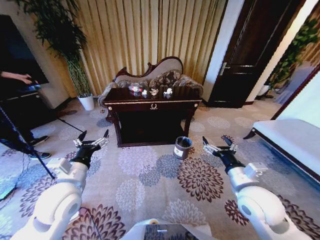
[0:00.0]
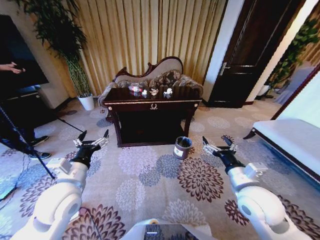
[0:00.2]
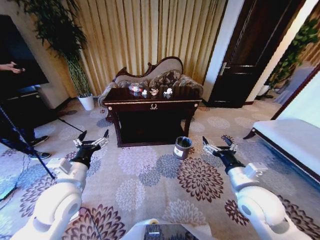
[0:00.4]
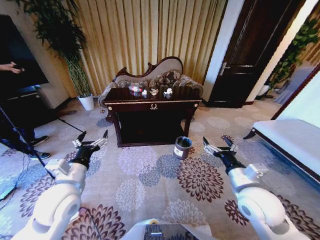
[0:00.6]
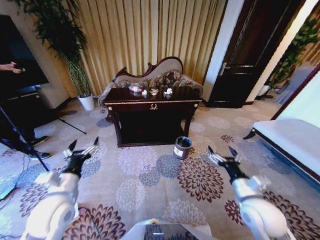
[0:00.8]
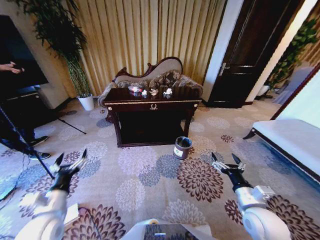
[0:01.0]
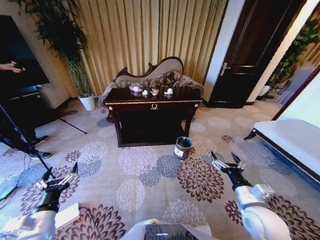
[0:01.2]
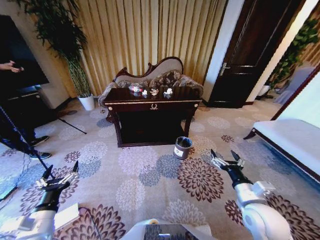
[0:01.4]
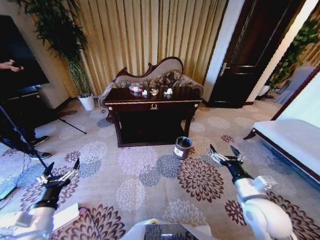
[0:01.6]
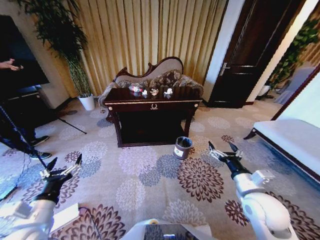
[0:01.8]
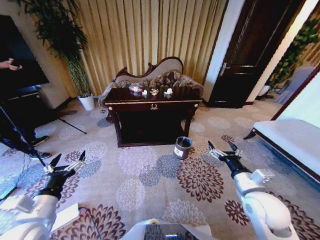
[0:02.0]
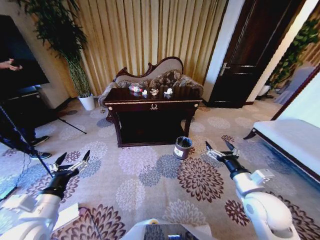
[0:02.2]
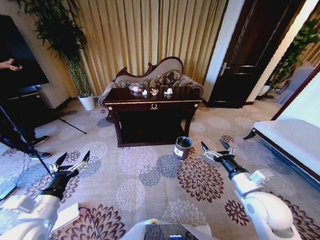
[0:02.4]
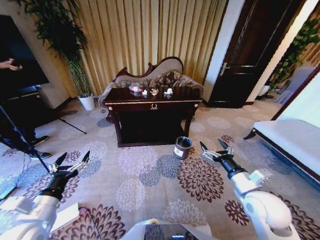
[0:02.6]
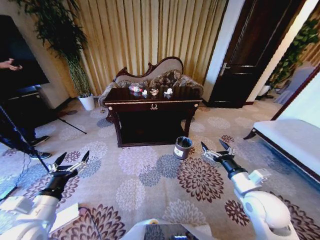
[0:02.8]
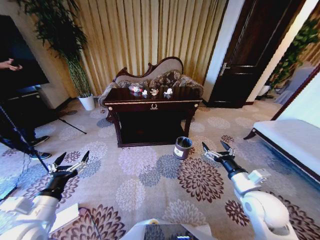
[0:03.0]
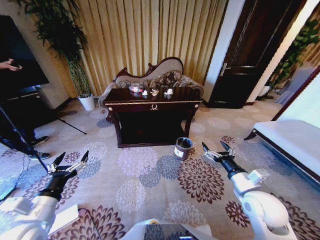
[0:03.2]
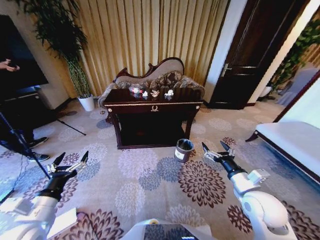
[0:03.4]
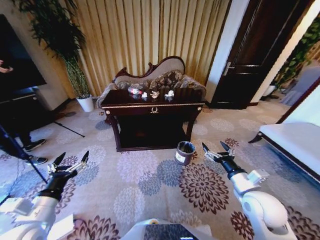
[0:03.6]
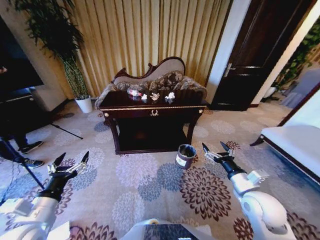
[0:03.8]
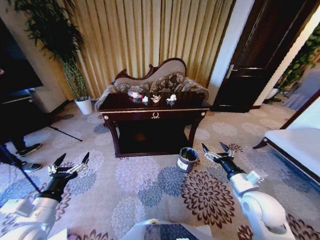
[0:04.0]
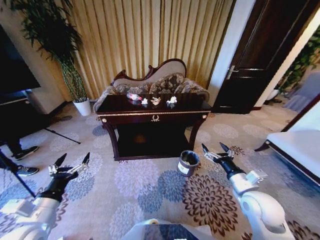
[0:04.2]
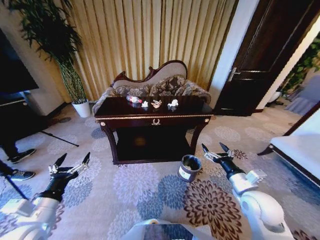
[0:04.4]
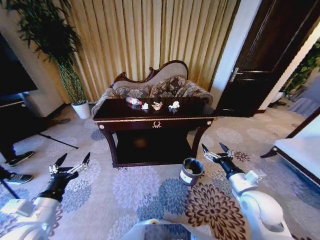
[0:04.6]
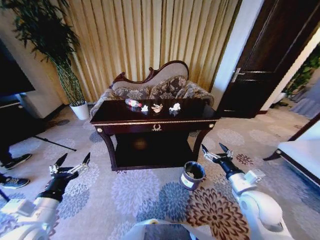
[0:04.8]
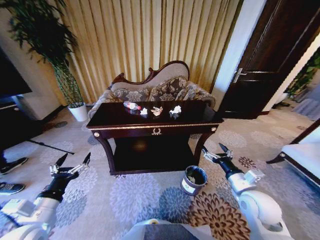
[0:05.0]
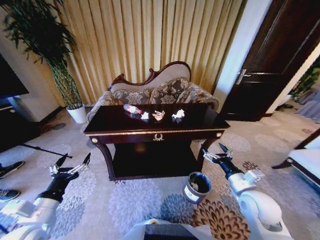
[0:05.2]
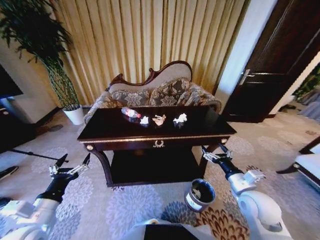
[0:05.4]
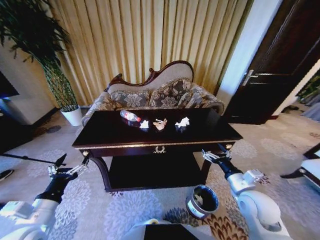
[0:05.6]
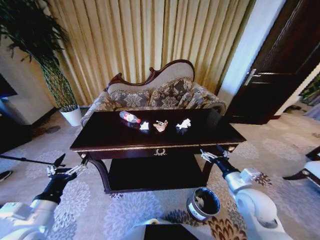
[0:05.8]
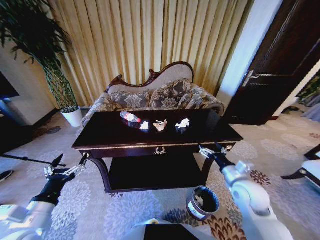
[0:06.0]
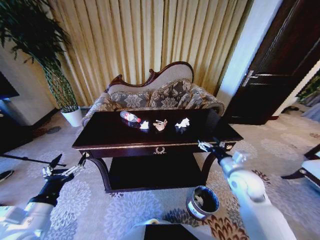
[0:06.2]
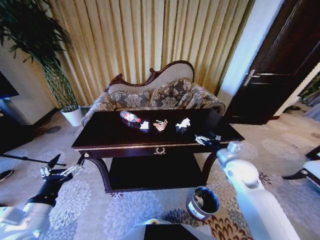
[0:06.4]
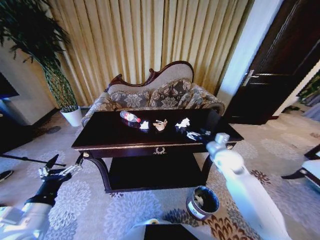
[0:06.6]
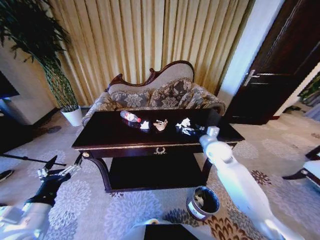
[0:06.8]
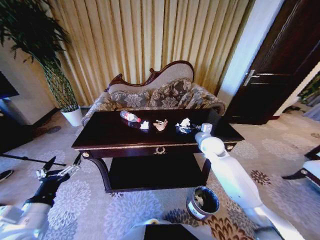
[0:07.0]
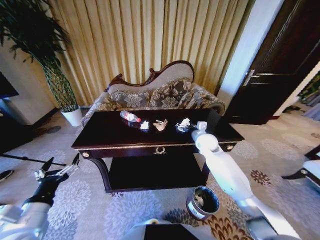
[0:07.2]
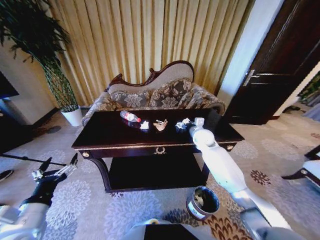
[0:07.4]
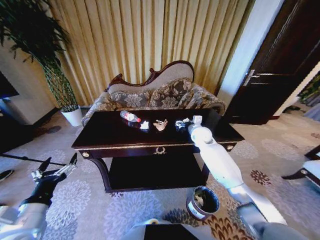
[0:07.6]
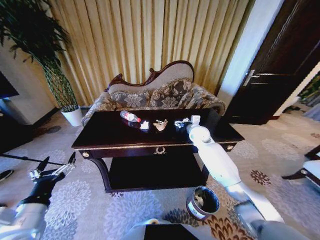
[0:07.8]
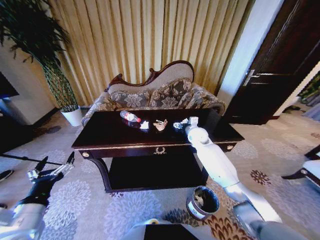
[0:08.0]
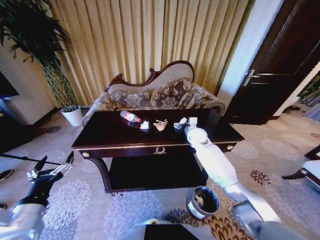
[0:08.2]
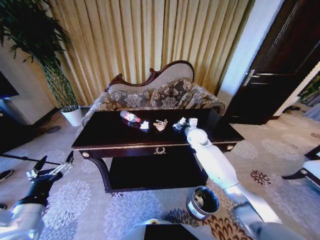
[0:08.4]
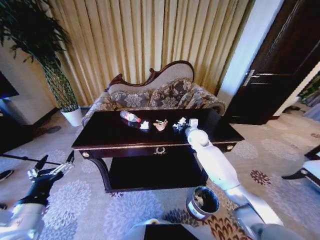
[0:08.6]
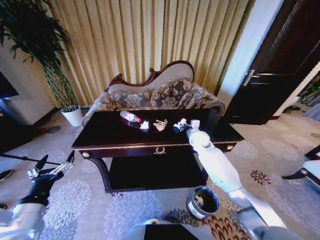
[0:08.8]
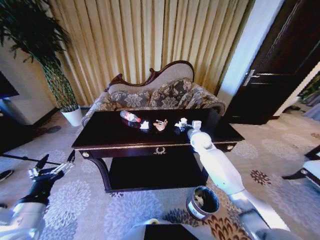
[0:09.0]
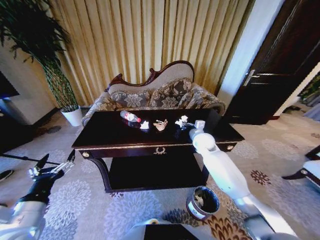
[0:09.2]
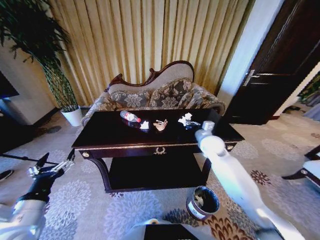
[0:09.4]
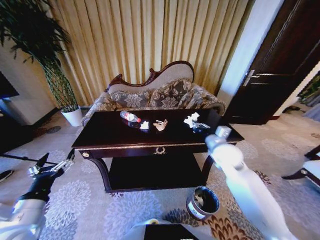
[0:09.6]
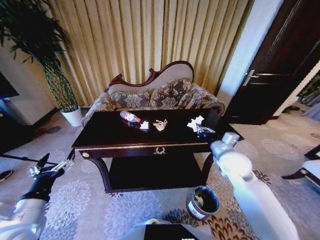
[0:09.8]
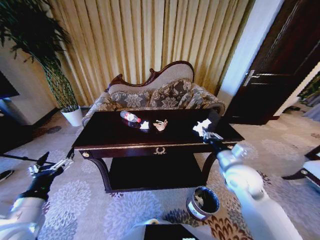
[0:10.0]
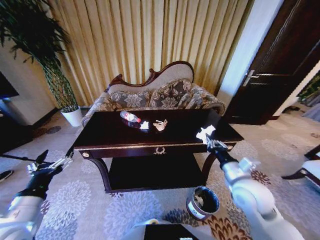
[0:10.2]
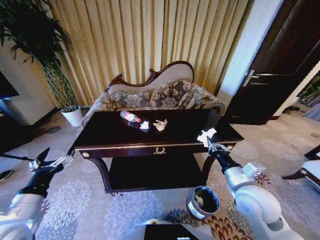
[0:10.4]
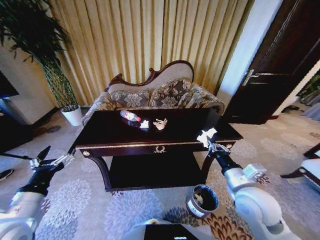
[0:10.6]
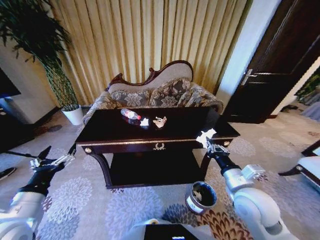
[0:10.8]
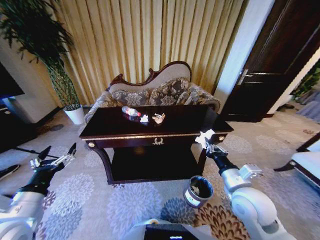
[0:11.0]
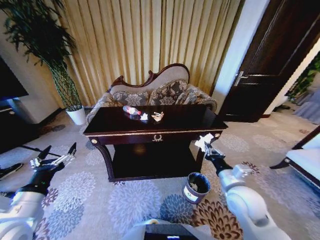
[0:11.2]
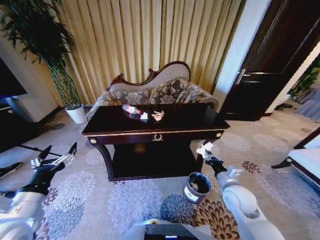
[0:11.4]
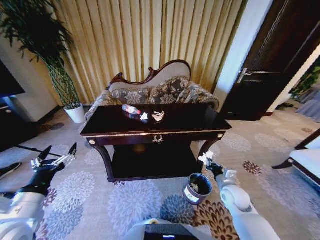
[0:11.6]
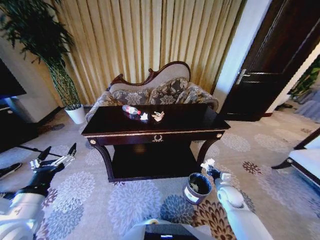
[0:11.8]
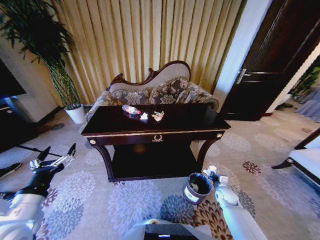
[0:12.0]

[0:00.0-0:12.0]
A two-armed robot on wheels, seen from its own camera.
Task of the whole recording: Move to the front of the table and place the trash on the table into the trash bin.
0:01.6 to 0:03.0: The grippers make only small movements.
0:06.0 to 0:07.6: The right gripper moves forward, approximately 25 cm.
0:07.6 to 0:09.0: The right gripper closes.
0:09.0 to 0:10.4: The right gripper heads backward, covering about 30 cm.
0:10.4 to 0:12.0: The right gripper shifts approximately 30 cm downward.

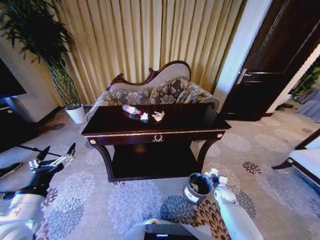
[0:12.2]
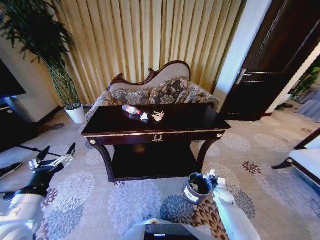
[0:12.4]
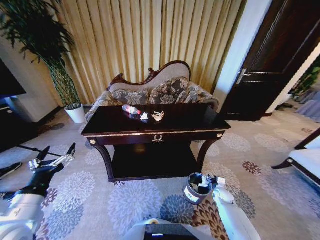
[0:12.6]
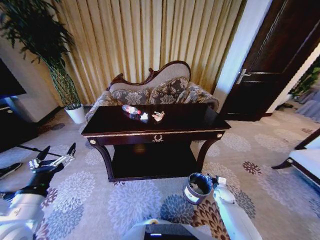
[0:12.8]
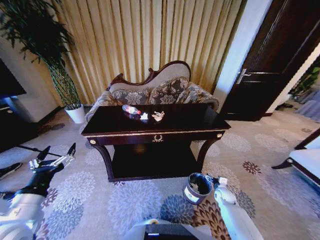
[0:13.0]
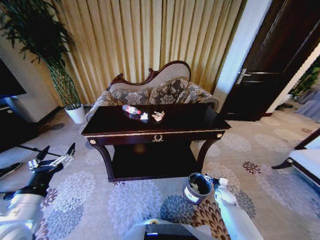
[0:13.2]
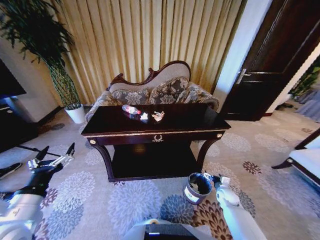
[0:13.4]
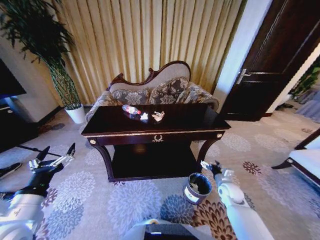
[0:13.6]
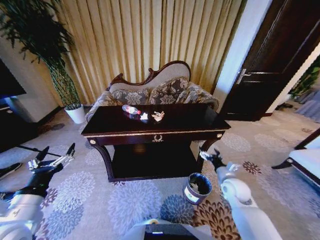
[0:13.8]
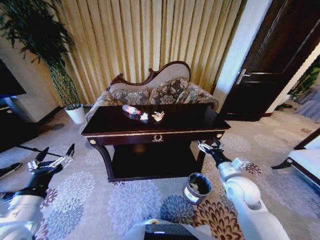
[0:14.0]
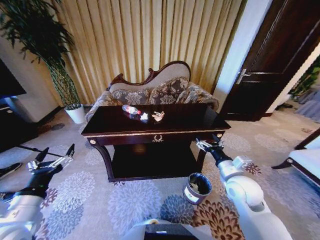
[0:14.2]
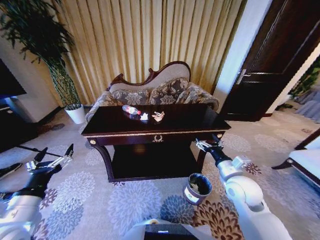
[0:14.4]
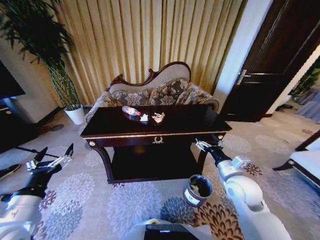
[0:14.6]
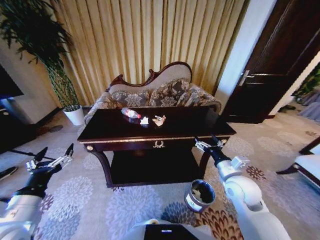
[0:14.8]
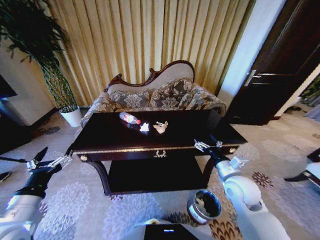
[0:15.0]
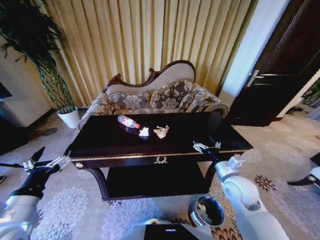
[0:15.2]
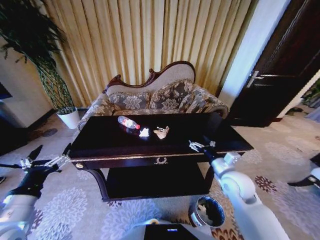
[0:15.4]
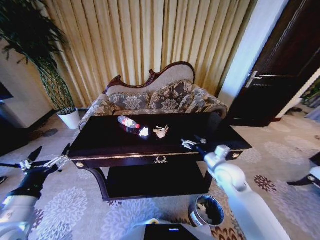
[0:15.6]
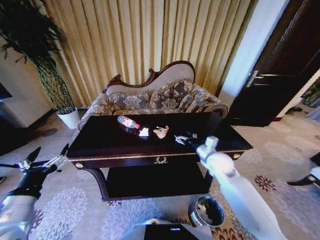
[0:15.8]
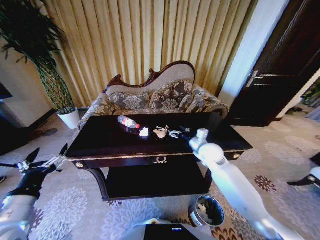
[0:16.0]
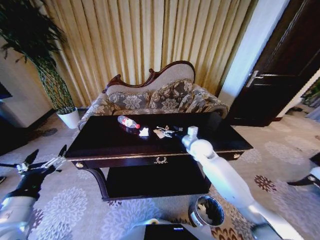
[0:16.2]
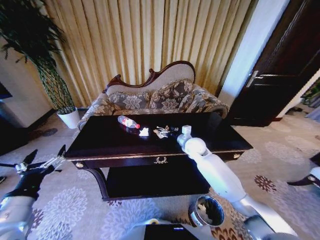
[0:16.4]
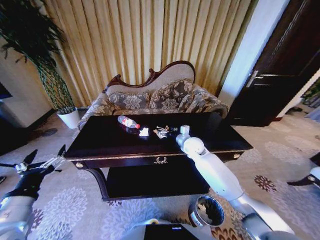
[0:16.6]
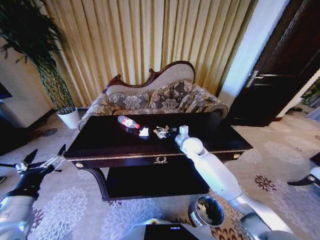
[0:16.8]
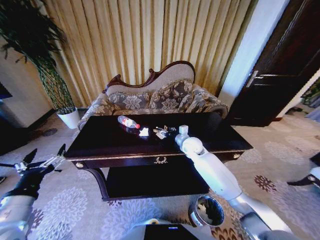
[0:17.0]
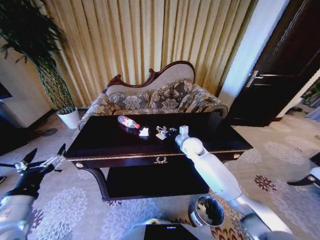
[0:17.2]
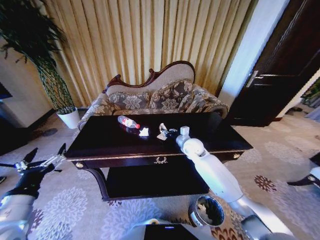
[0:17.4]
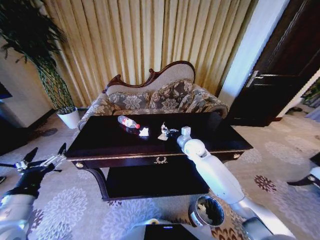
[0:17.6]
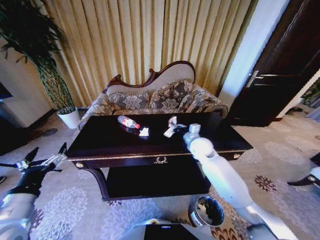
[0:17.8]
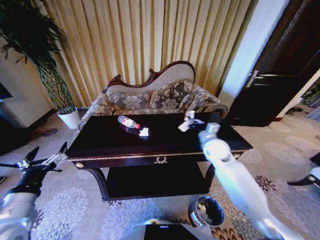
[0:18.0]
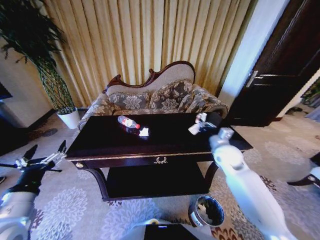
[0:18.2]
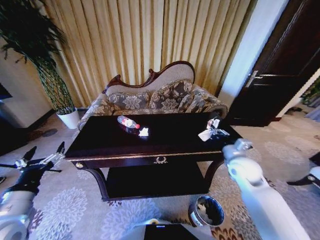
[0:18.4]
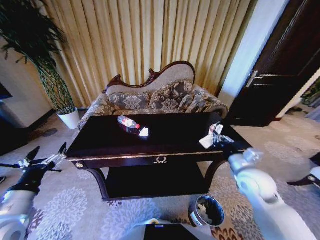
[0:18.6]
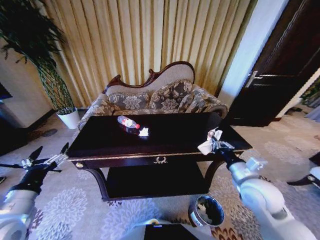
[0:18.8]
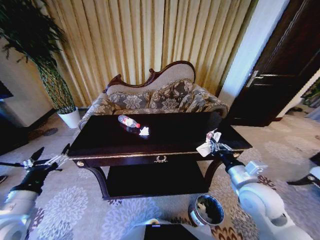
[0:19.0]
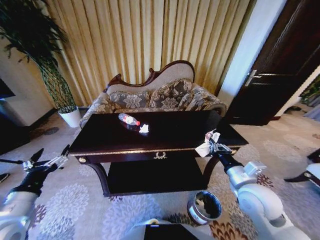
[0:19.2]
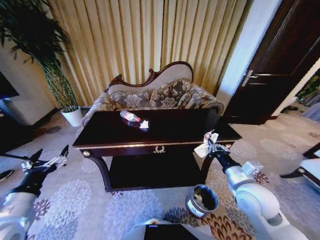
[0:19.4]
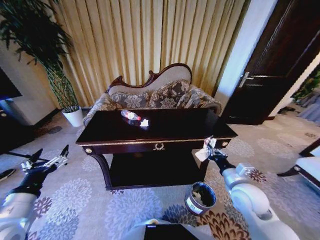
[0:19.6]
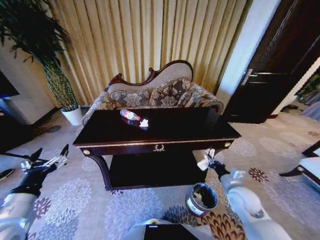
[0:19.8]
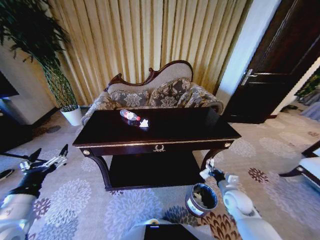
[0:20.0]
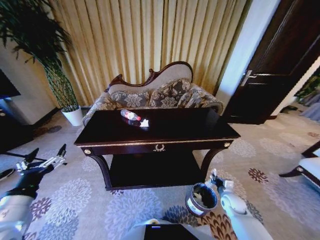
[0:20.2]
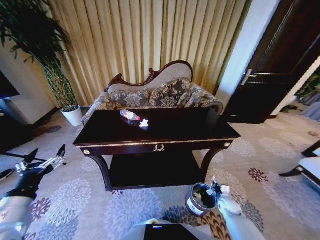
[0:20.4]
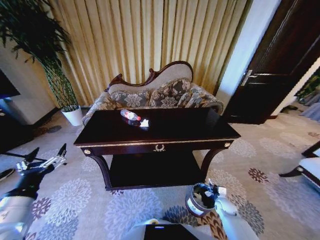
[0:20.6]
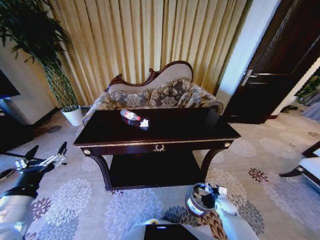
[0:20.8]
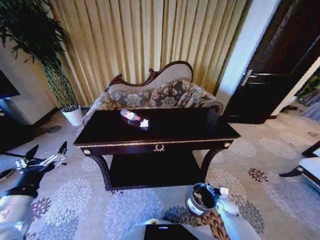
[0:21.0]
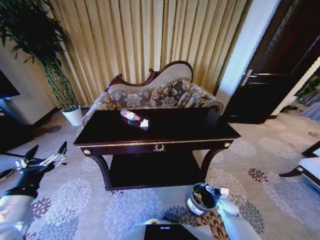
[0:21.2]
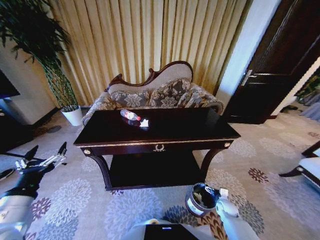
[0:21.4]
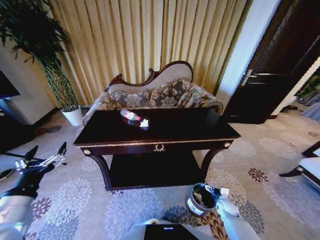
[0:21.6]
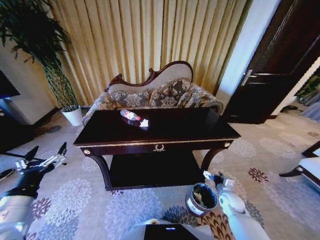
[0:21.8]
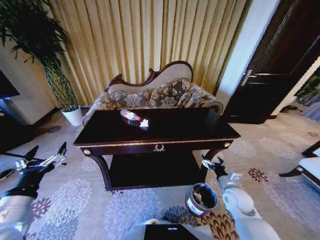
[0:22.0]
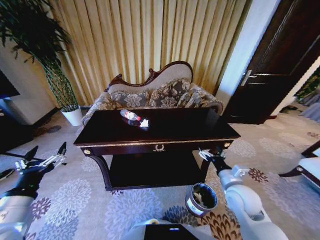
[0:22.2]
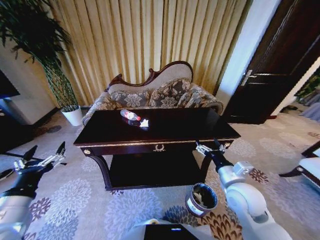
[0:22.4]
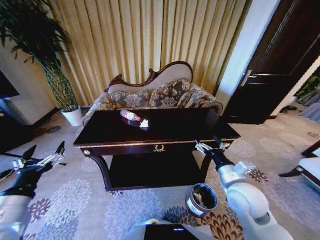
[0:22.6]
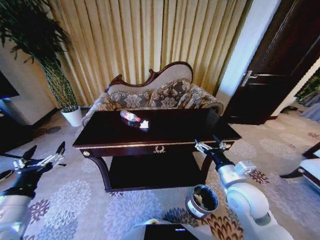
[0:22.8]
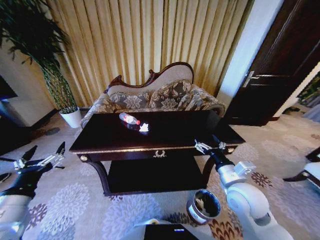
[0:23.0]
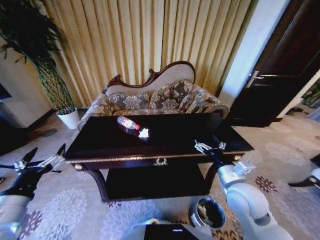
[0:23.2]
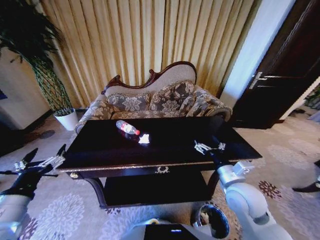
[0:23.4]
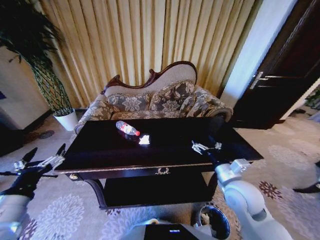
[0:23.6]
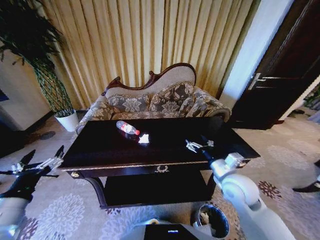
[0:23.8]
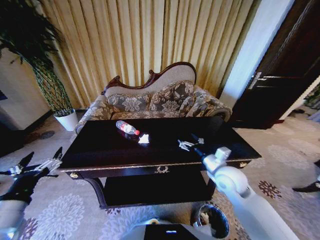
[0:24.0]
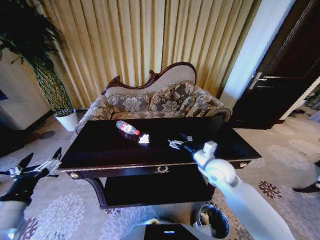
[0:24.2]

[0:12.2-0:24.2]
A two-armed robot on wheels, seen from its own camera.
Task of the whole recording: Move to the front of the table and place the trash on the table into the trash bin.
0:12.2 to 0:13.8: The right gripper is displaced upward by approximately 20 cm, and opens its fingers.
0:13.8 to 0:15.2: The right gripper heads upward and to the left, covering about 10 cm.
0:15.2 to 0:16.6: The right gripper heads forward and to the left, covering some 25 cm.
0:16.6 to 0:18.2: The right gripper is displaced to the right and backward by some 15 cm, and closes.
0:18.2 to 0:19.8: The right gripper goes some 15 cm backward and downward.
0:19.8 to 0:21.2: The right gripper is displaced downward by approximately 25 cm, and opens its fingers.
0:21.2 to 0:22.6: The right gripper shifts approximately 35 cm upward.
0:22.6 to 0:24.2: The right gripper heads forward, covering about 10 cm.
